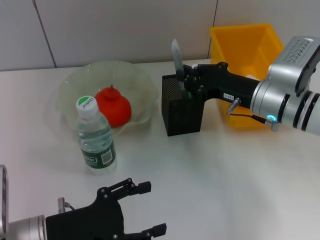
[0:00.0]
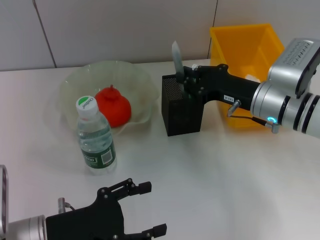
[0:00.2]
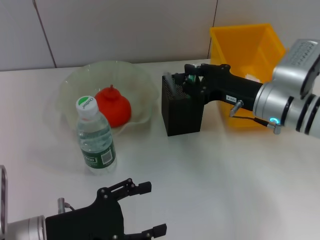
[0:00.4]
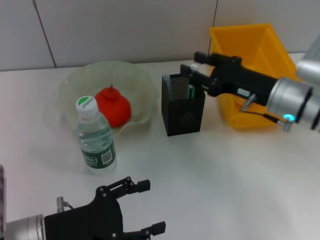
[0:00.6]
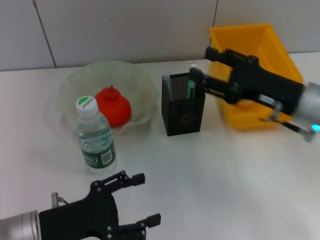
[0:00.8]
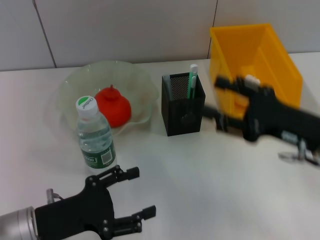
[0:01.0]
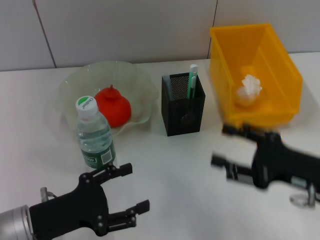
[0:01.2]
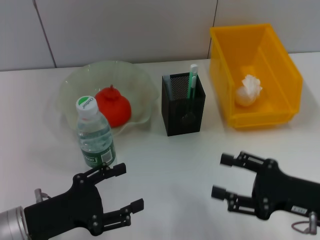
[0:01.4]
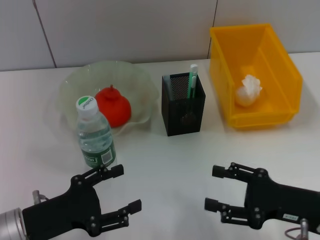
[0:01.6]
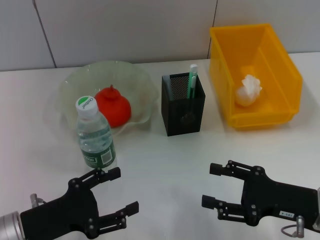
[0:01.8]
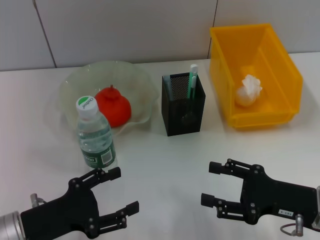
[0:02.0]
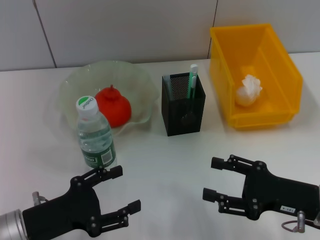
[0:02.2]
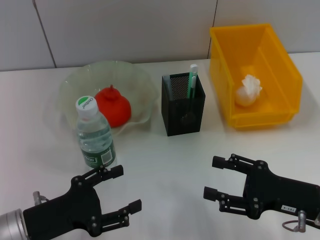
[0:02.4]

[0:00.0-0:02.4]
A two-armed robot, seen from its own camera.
0:00.0 to 0:01.2: The right gripper travels backward and to the right by approximately 15 cm, and opens up.
0:01.2 to 0:02.4: The grippers move only a little.

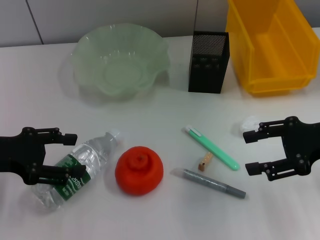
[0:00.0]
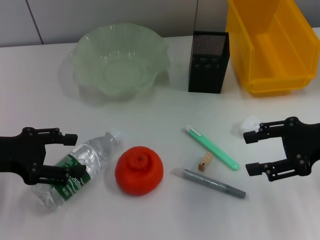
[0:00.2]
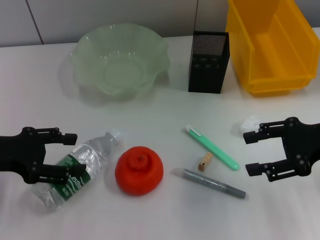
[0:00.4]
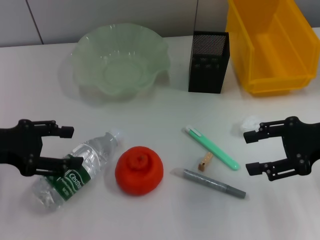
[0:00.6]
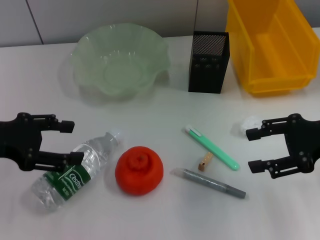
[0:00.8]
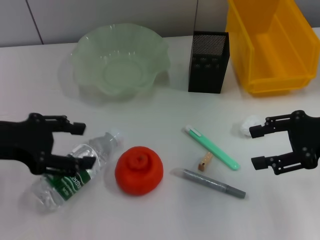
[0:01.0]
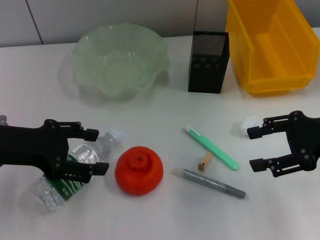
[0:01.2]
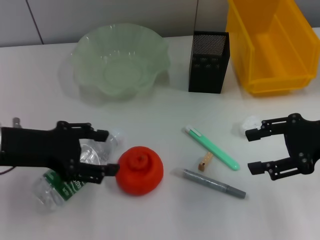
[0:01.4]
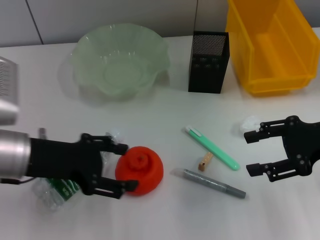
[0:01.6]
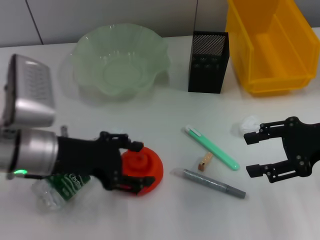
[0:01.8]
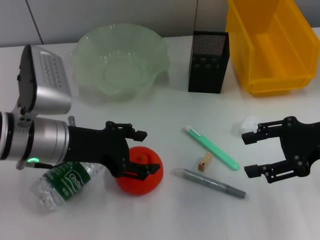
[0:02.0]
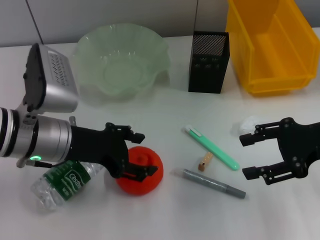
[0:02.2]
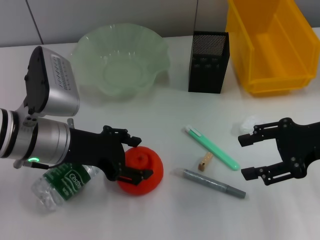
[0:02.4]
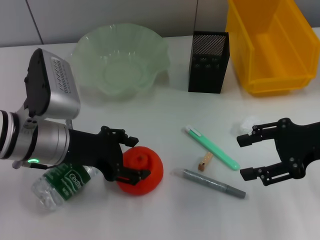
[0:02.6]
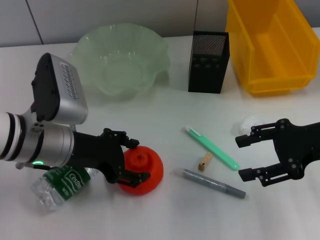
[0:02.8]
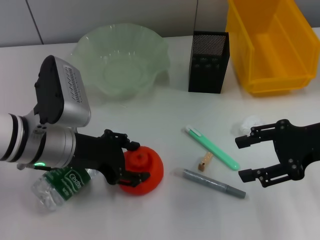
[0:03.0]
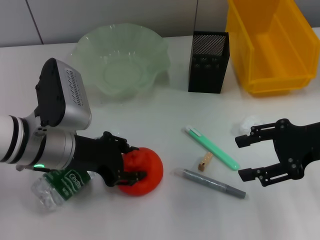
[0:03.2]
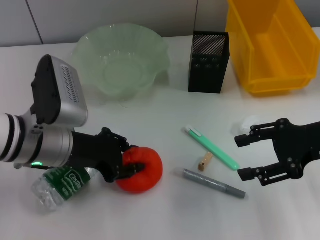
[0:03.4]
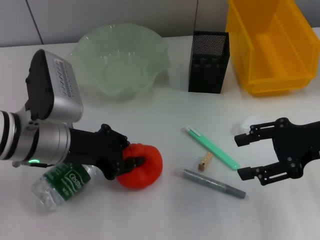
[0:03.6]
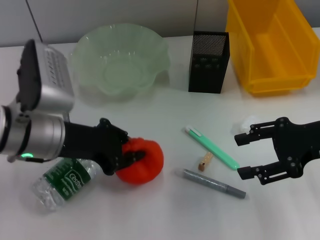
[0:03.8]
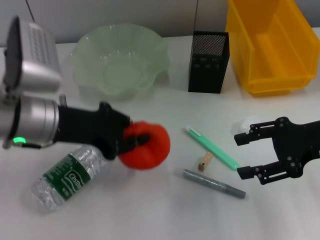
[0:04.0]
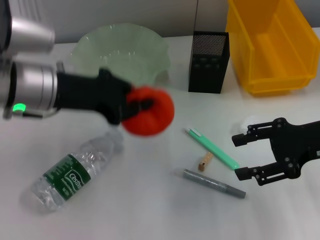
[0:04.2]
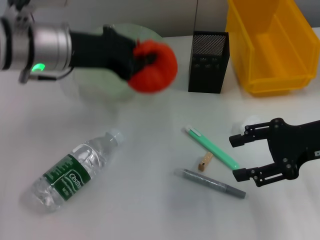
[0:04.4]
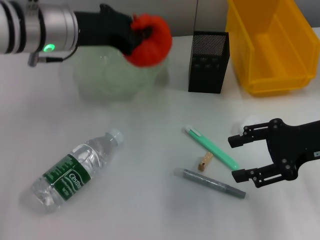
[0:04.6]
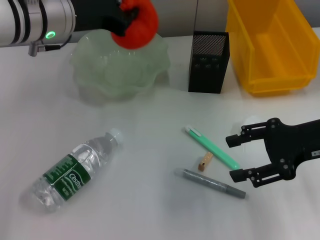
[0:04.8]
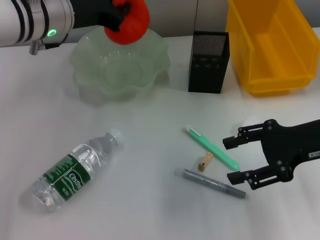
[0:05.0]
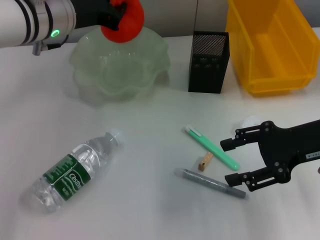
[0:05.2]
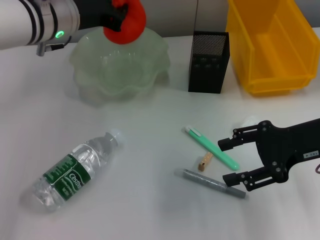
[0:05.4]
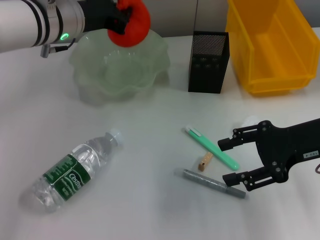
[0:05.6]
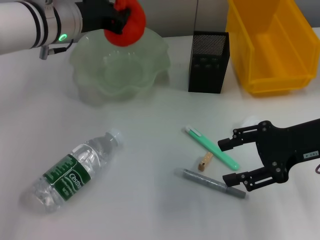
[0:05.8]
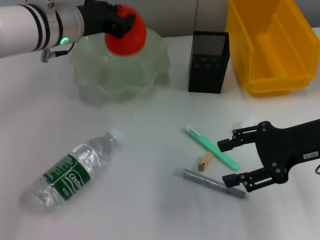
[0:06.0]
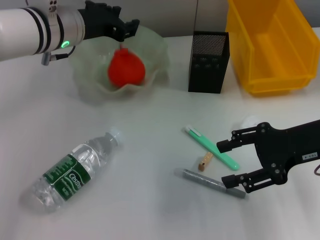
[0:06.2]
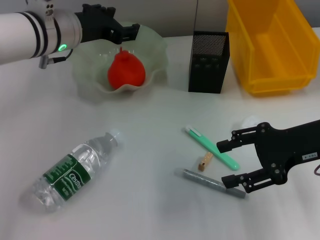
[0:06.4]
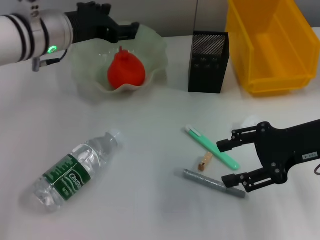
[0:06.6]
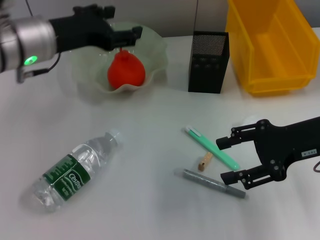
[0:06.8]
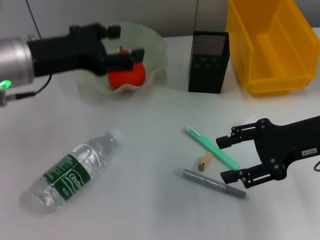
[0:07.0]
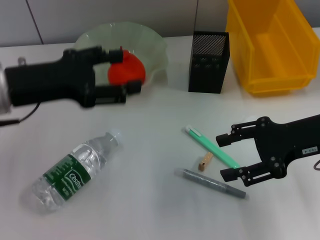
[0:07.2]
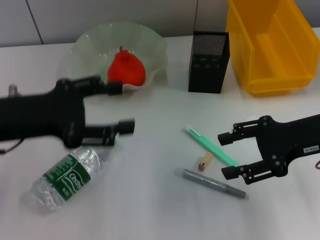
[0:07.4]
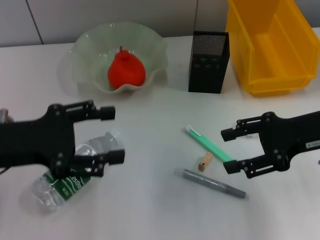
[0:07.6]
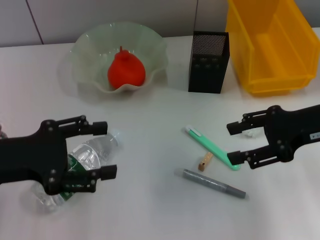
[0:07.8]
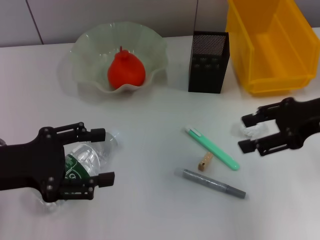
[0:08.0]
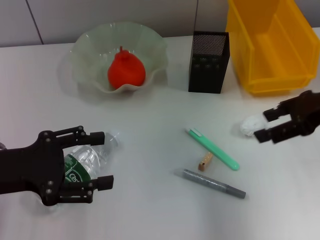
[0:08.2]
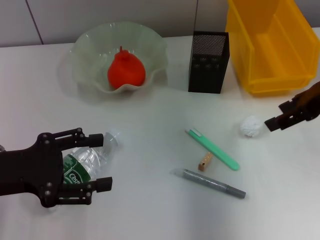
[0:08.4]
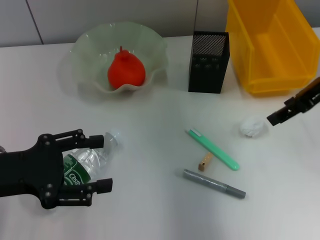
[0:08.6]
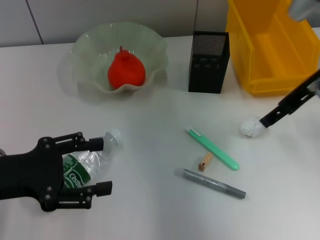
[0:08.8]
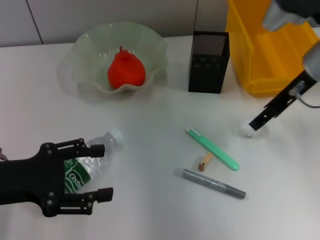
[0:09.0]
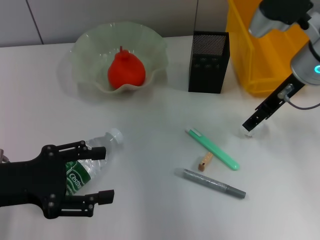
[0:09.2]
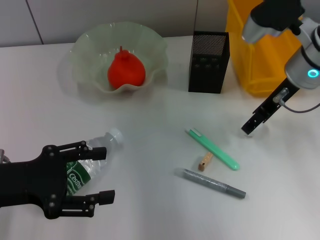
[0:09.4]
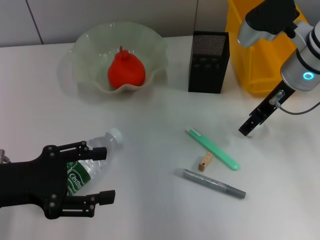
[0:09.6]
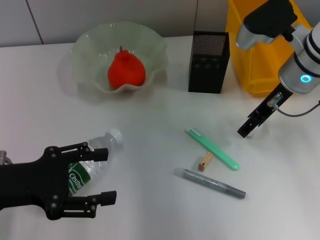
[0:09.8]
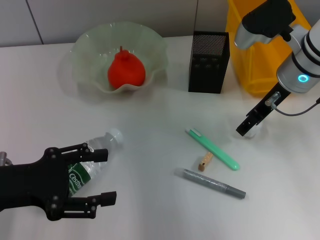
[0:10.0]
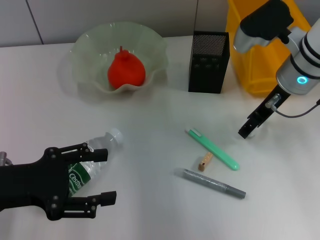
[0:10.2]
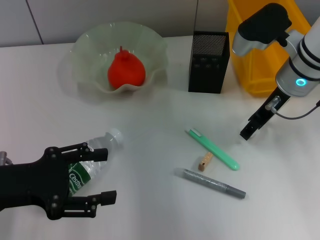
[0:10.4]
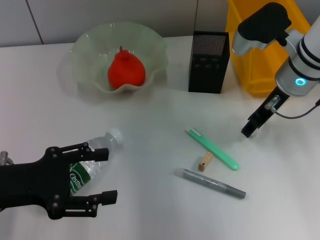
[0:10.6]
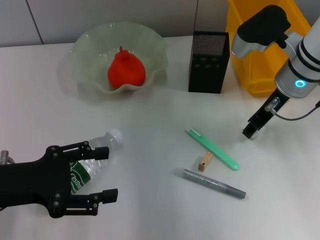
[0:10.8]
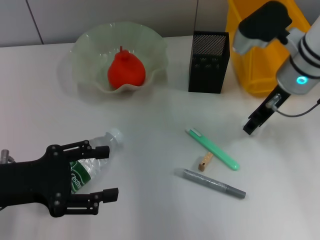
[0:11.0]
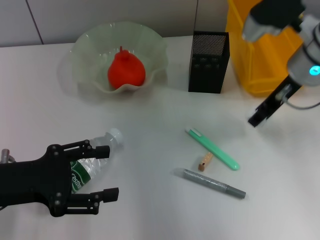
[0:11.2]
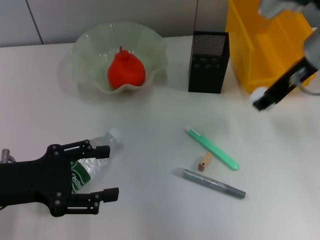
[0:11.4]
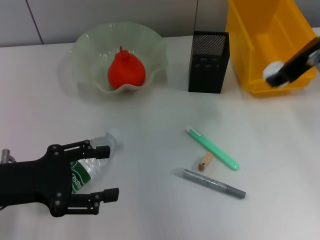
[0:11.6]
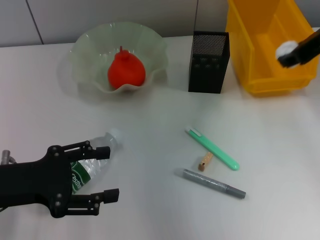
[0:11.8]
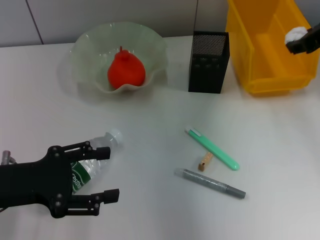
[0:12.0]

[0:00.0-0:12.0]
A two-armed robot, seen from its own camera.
Step, 0:00.0 to 0:03.4: Grab the orange with the left hand.
Step, 0:03.6 to 0:06.2: Place the orange into the fruit bowl with the left hand.
Step, 0:06.4 to 0:10.6: Grab the paper ball with the right hand.
0:00.0 to 0:01.6: The left gripper goes about 10 cm to the right.
0:01.6 to 0:03.0: The left gripper moves to the right, roughly 5 cm.
0:03.0 to 0:04.4: The left gripper heads upward and forward, covering roughly 10 cm, and closes its fingers.
0:04.4 to 0:06.0: The left gripper goes roughly 5 cm forward.
0:06.0 to 0:07.6: The left gripper is displaced backward and to the left by about 20 cm, and opens.
0:07.6 to 0:09.0: The right gripper shifts roughly 10 cm forward.
0:09.0 to 0:10.4: The grippers make only small movements.
0:10.4 to 0:12.0: The right gripper heads upward and to the right, covering approximately 10 cm, and closes up.

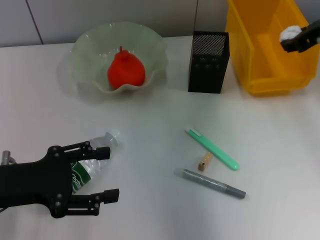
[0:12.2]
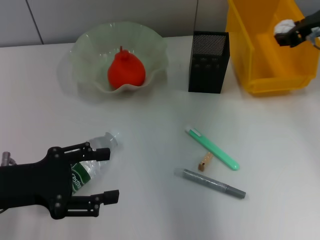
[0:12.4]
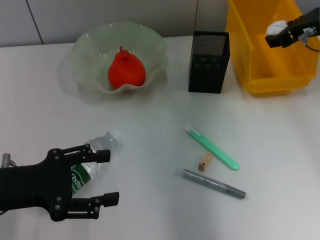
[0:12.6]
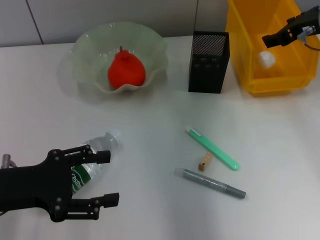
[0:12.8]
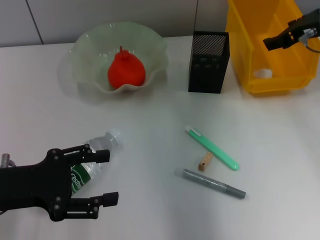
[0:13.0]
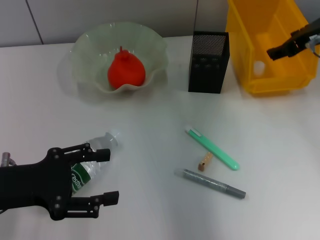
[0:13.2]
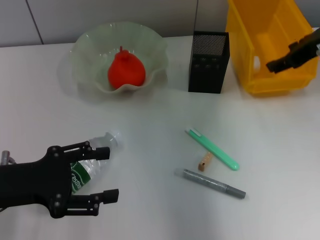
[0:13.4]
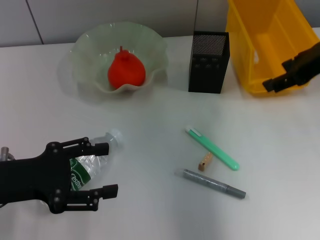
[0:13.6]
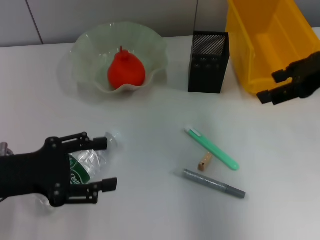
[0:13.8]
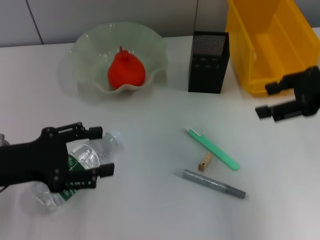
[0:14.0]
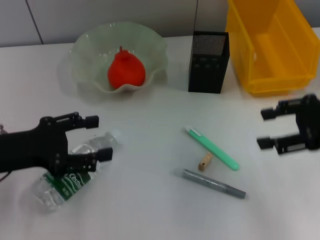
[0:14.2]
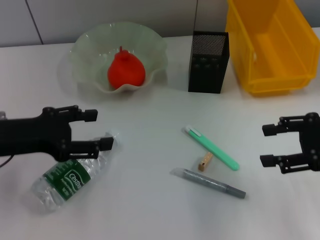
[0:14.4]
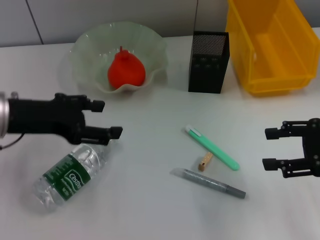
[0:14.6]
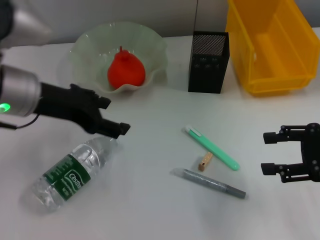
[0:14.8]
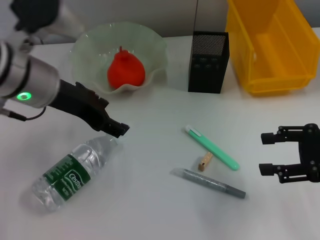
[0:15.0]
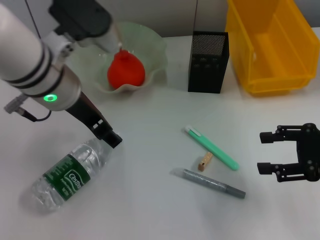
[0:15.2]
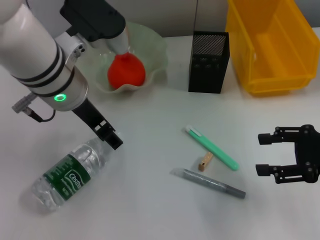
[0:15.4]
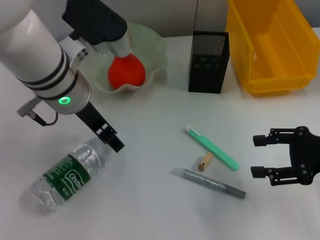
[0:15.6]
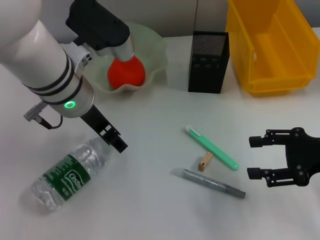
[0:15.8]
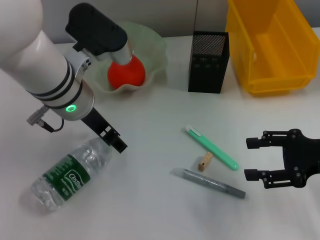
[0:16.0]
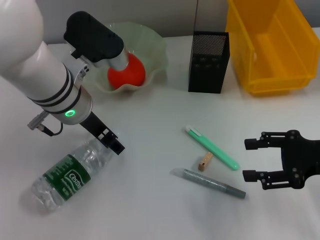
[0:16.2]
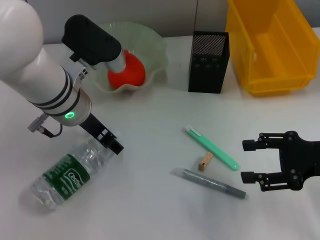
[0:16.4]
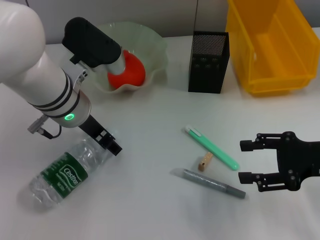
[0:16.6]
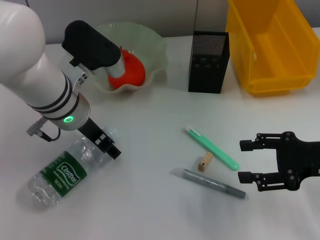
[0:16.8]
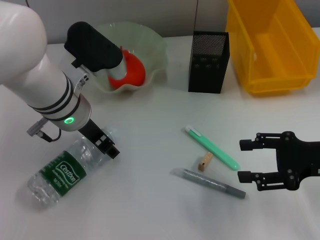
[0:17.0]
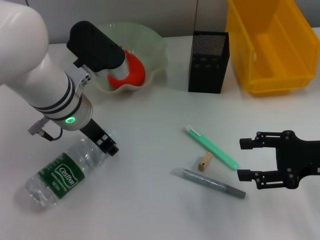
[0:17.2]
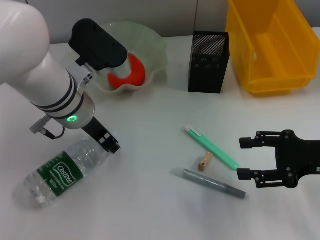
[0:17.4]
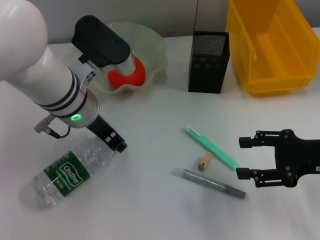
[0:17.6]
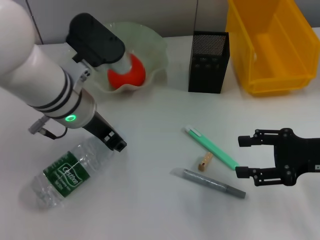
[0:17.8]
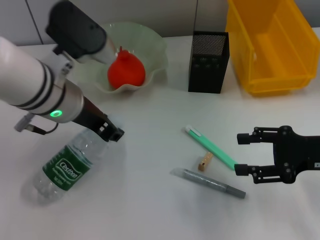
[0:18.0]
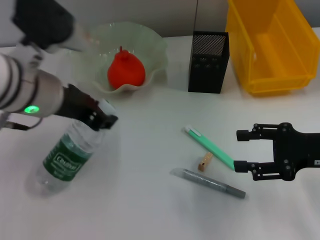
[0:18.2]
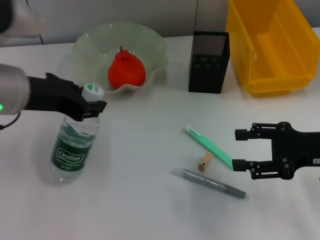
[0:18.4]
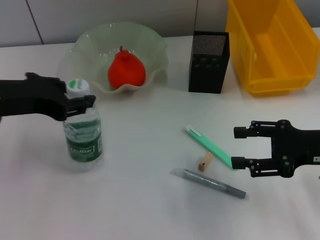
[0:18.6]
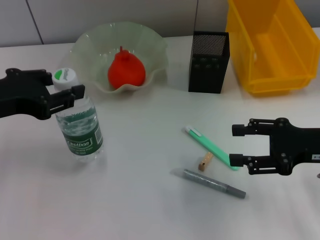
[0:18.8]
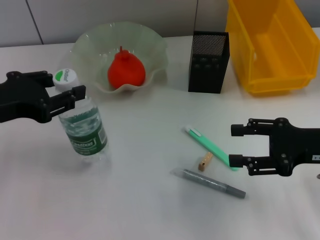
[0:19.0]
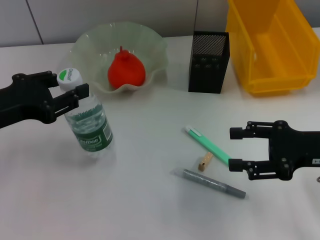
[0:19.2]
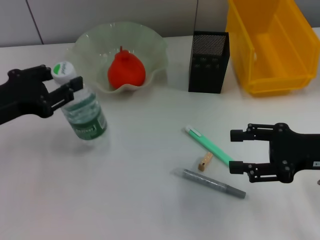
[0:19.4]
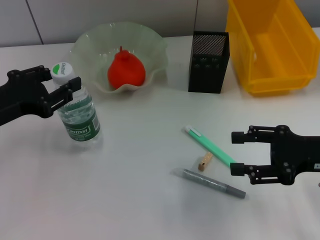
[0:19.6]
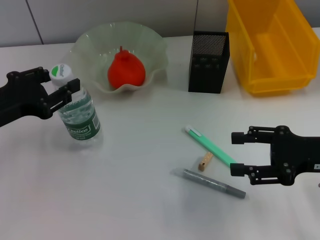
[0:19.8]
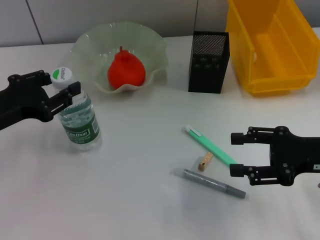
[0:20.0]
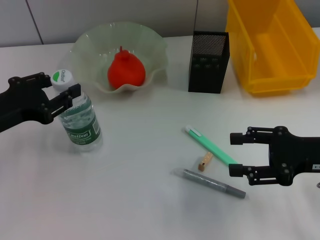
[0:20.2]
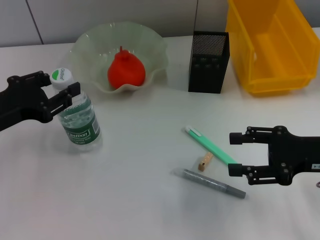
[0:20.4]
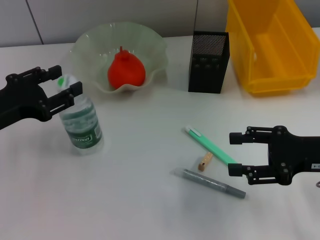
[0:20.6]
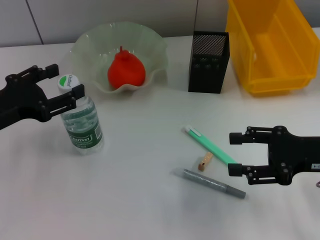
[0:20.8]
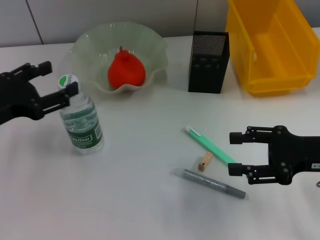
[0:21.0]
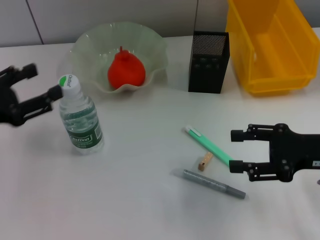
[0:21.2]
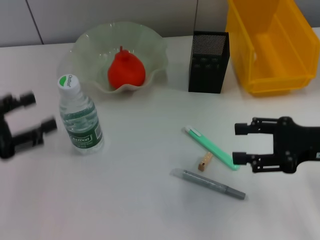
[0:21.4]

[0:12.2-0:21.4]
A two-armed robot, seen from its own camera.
Step, 0:13.2 to 0:17.0: Grab the water bottle with the left hand.
Step, 0:17.4 to 0:21.0: Place the water bottle on the table with the left hand.
0:12.2 to 0:13.8: The right gripper shifts some 5 cm backward, and opens.
0:13.8 to 0:15.2: The right gripper goes some 15 cm downward and backward, while the left gripper heads to the right, forward and upward, covering roughly 20 cm.
0:15.2 to 0:16.8: The left gripper is displaced downward by roughly 5 cm.
0:16.8 to 0:18.4: The left gripper heads to the left and upward, covering roughly 10 cm.
0:18.4 to 0:19.8: The left gripper goes approximately 10 cm to the left and downward.
0:19.8 to 0:21.4: The left gripper heads to the left, covering about 5 cm, and opens its fingers.
